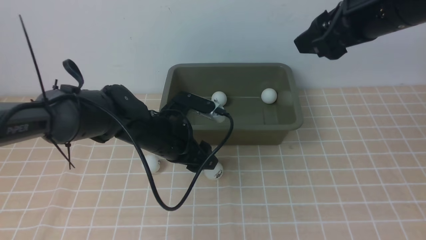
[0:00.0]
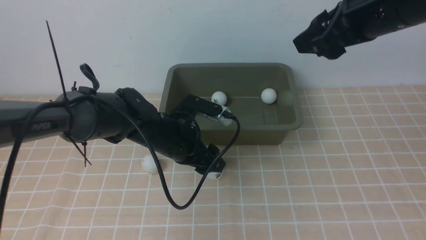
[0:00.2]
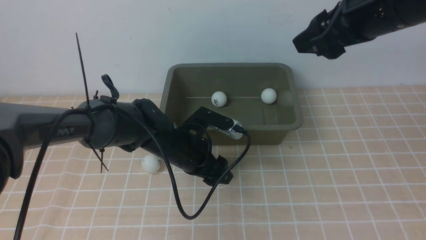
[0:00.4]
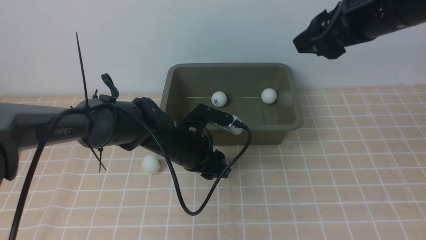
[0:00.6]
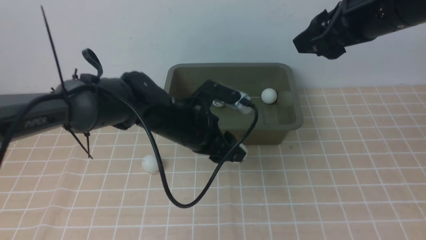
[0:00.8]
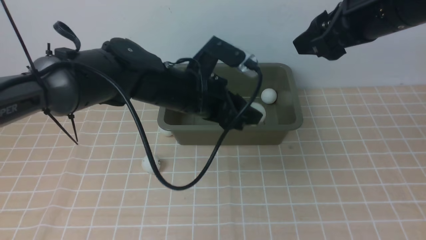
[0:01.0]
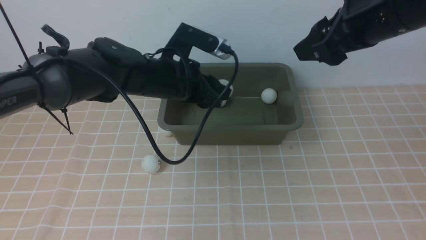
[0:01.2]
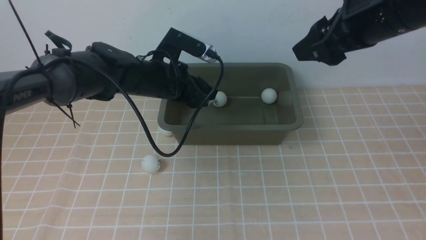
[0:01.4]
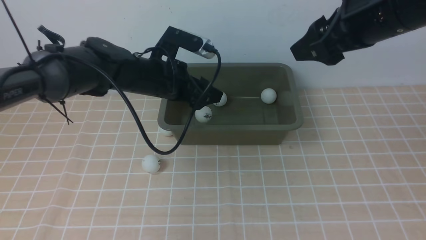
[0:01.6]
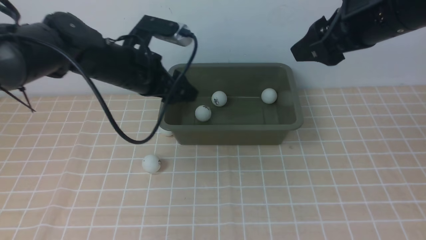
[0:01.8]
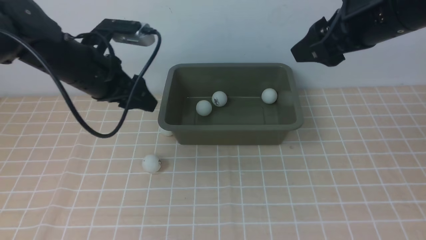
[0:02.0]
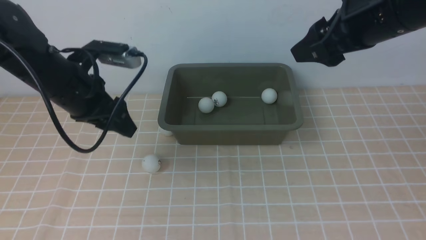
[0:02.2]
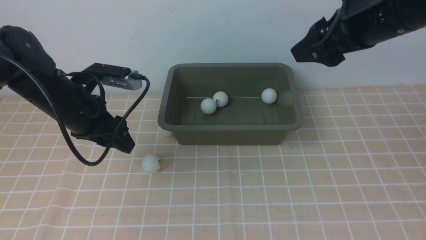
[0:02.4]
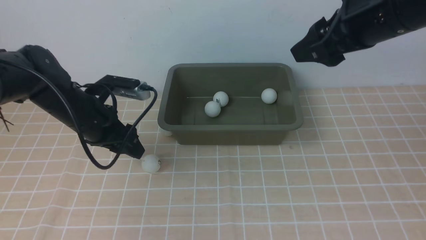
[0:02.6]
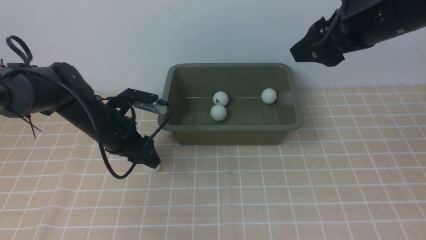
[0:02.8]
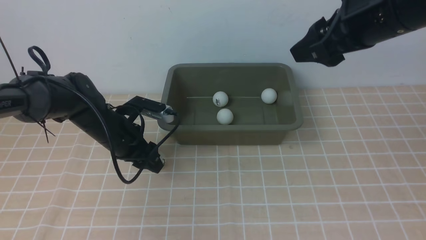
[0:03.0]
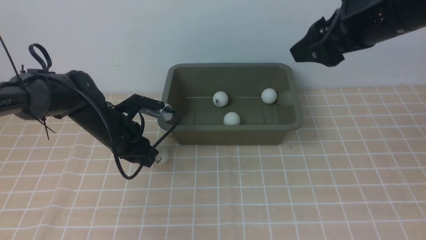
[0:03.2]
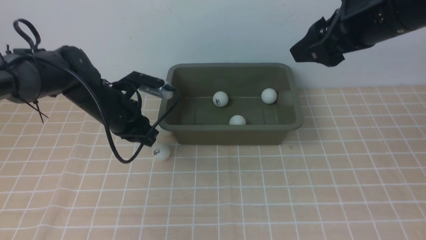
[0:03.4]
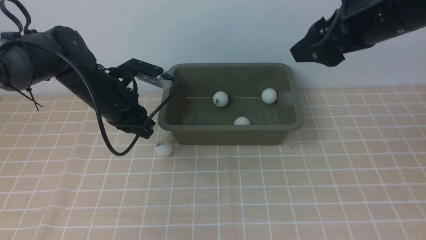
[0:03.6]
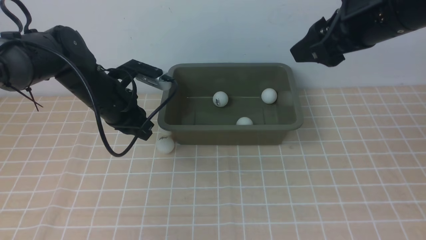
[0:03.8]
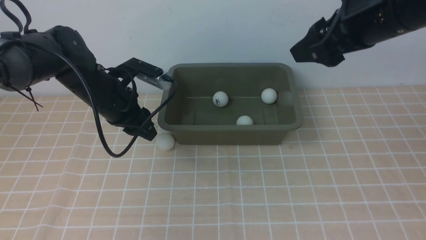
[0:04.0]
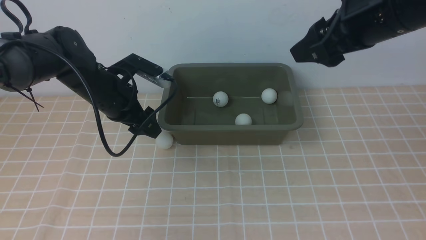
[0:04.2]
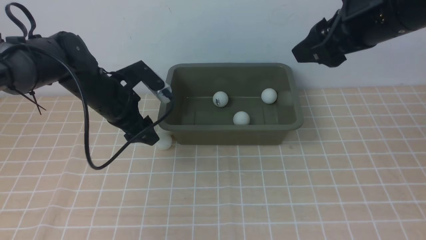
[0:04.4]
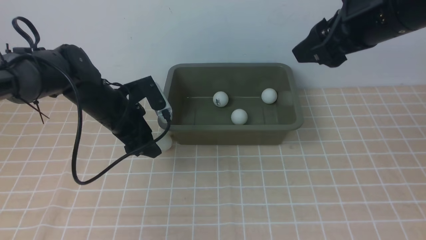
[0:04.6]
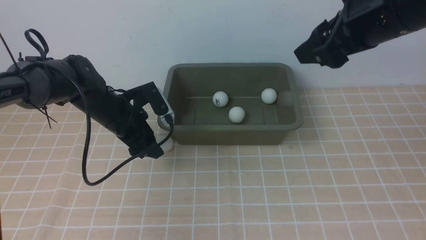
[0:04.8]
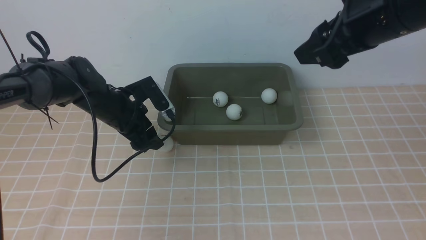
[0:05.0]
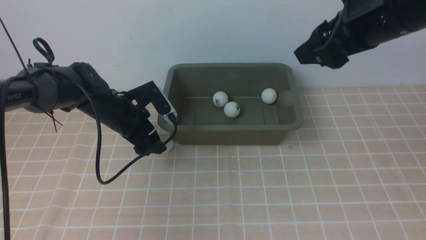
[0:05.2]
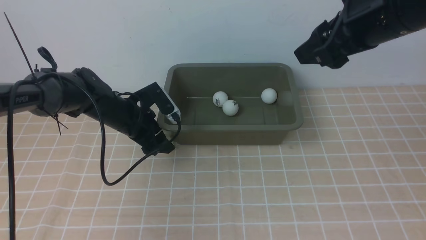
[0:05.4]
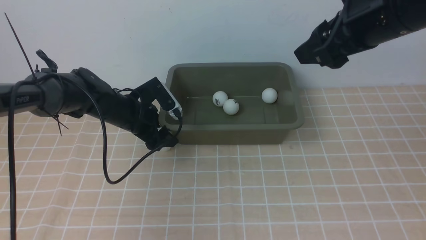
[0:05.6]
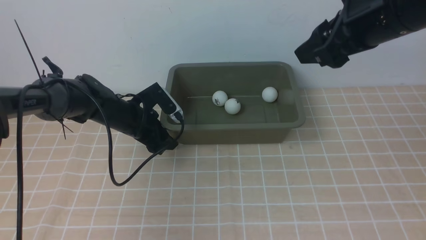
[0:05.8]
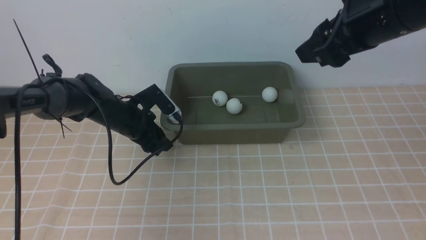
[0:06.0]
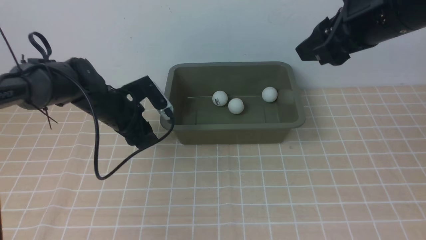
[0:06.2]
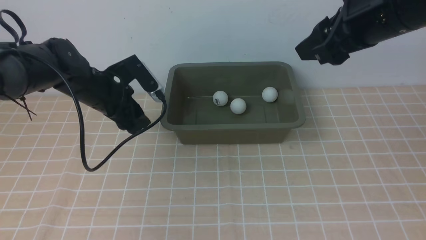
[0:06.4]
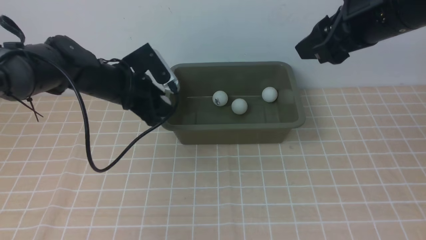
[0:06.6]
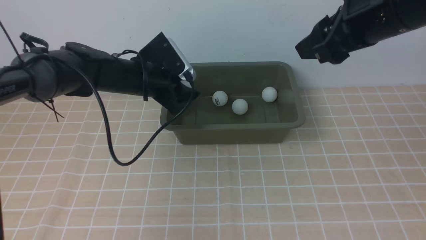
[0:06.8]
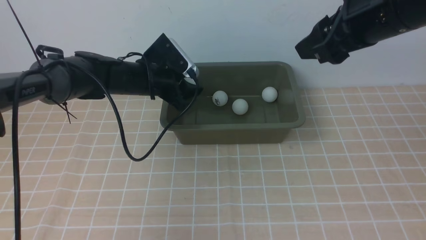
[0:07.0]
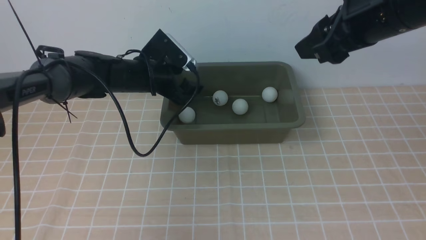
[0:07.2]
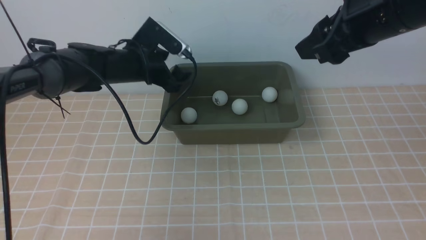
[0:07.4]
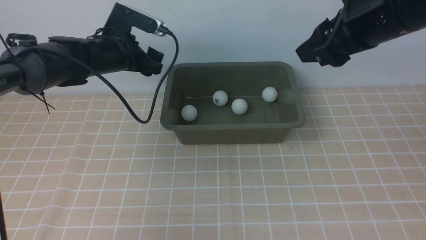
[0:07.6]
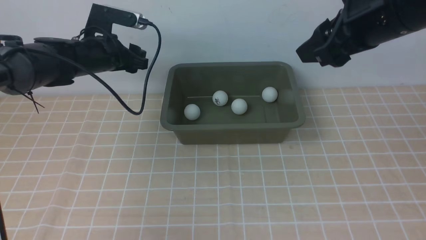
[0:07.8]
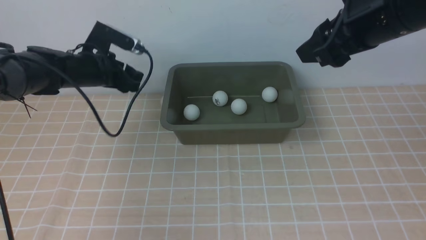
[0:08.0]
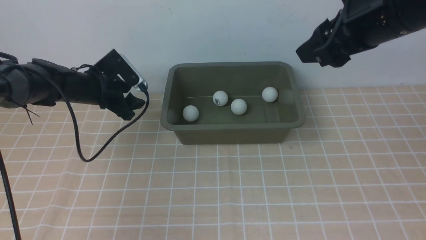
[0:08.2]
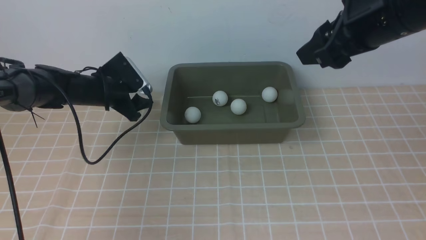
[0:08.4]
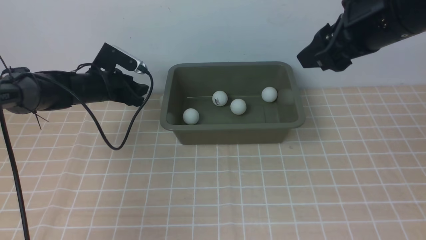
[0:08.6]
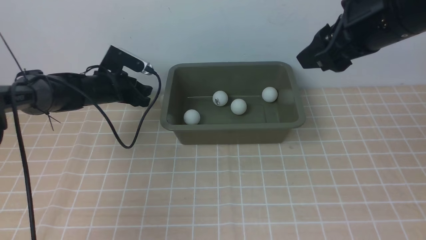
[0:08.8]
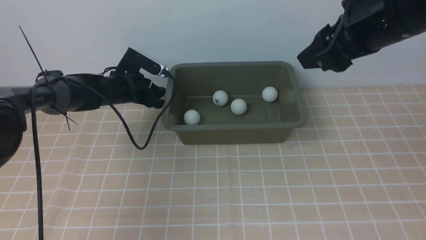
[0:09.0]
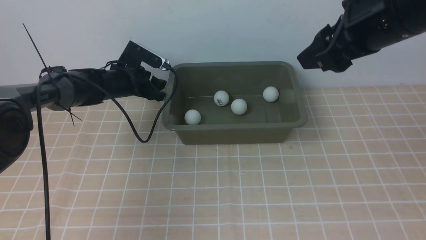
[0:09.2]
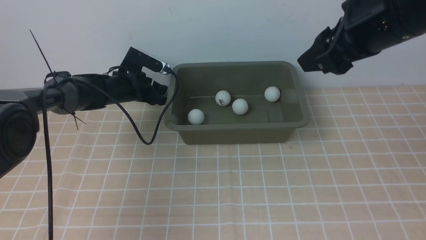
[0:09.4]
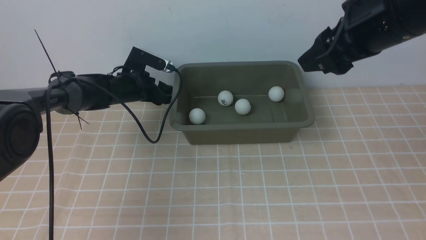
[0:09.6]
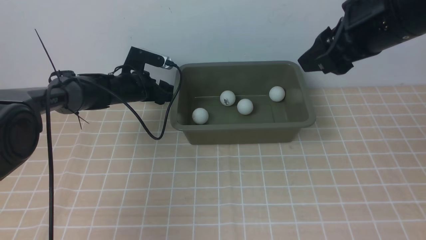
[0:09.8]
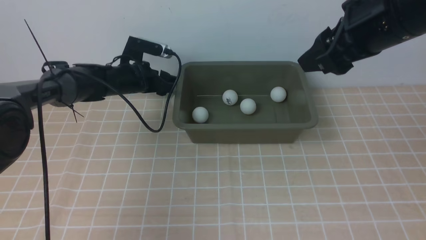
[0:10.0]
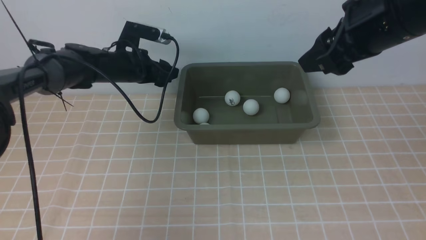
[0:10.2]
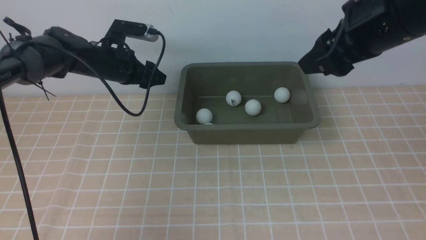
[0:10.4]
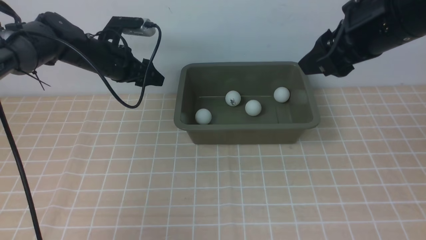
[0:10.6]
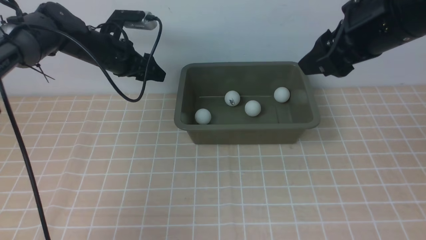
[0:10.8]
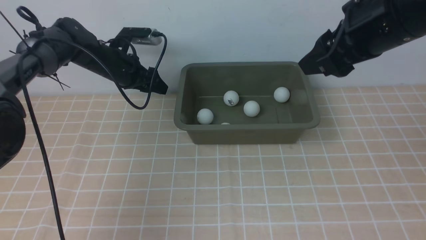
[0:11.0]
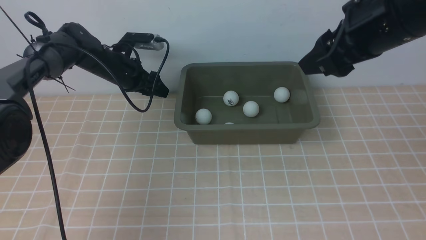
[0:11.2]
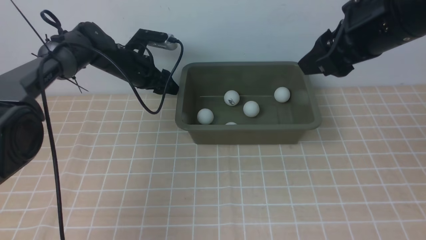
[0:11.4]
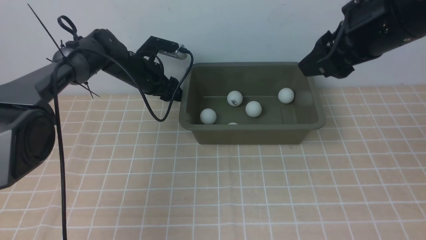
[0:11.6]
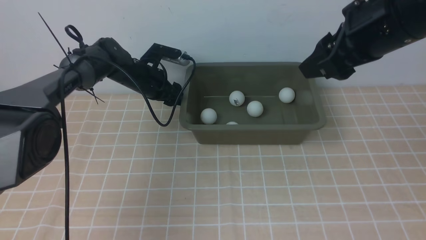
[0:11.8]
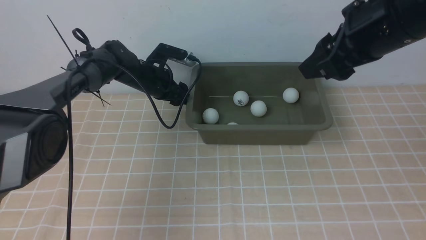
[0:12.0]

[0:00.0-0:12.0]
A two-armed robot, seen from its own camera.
Step, 0:01.2 to 0:01.6: use the left arm to put the table tennis ball into the box.
Step, 0:02.0 to 0:06.2: use the left arm to clamp the table tennis ball closest to it.
Step, 0:06.4 to 0:07.4: use the left arm to put the table tennis ball into the box.
0:00.0 to 0:01.6: The left gripper shifts roughly 10 cm upward and forward, and closes, then opens again.
0:01.6 to 0:03.0: The left gripper shifts about 10 cm downward and to the left, and closes.
0:03.0 to 0:04.4: The left gripper changes place by approximately 5 cm, and opens.
0:04.4 to 0:06.0: The left gripper heads downward, covering some 5 cm, and closes up.
0:06.0 to 0:07.6: The left gripper travels upward by about 10 cm, and opens up.
0:07.6 to 0:09.0: The left gripper moves downward, roughly 10 cm, and closes up.
0:09.0 to 0:10.4: The left gripper is displaced upward by approximately 10 cm.
0:10.4 to 0:12.0: The left gripper heads downward and to the right, covering some 10 cm.

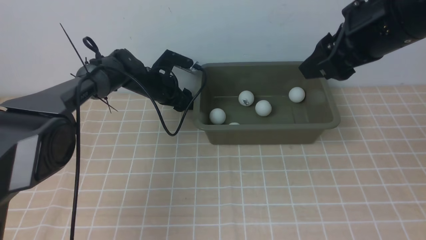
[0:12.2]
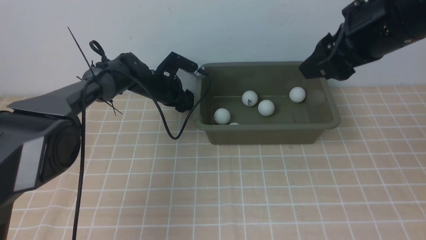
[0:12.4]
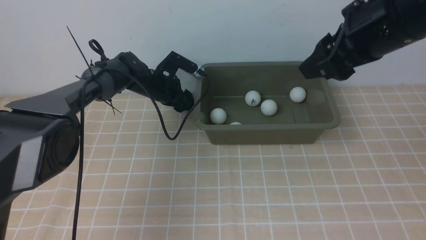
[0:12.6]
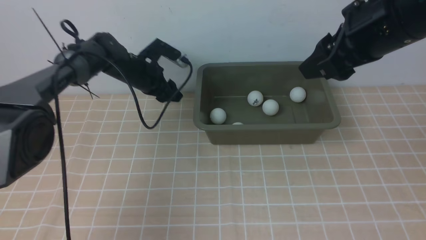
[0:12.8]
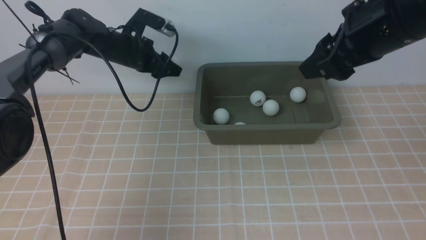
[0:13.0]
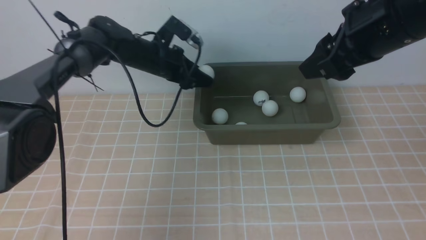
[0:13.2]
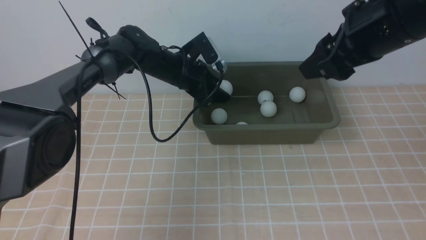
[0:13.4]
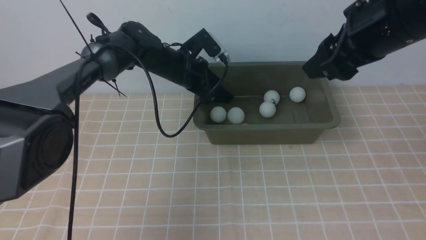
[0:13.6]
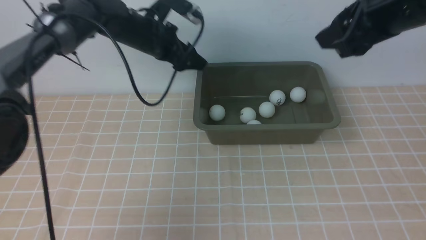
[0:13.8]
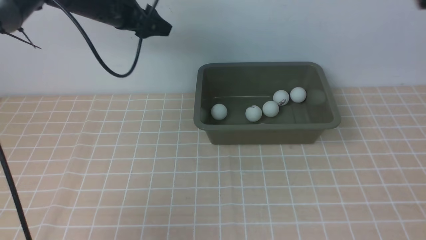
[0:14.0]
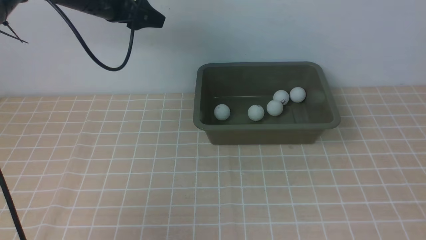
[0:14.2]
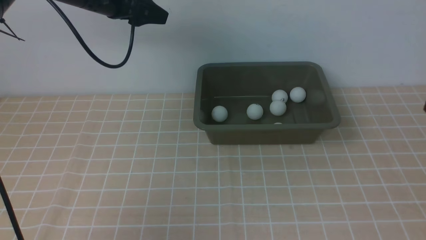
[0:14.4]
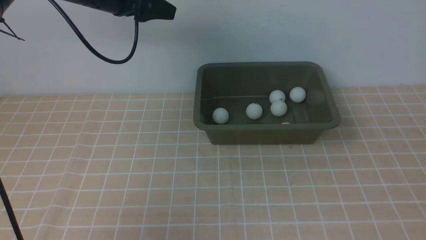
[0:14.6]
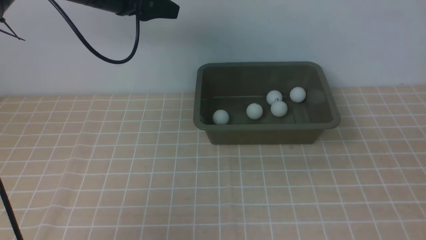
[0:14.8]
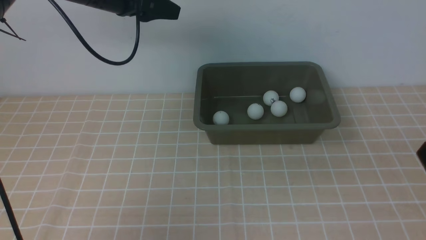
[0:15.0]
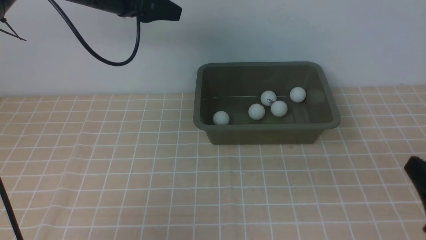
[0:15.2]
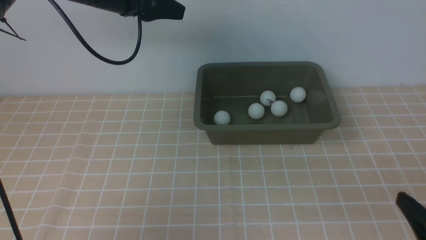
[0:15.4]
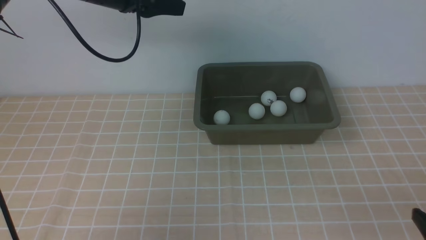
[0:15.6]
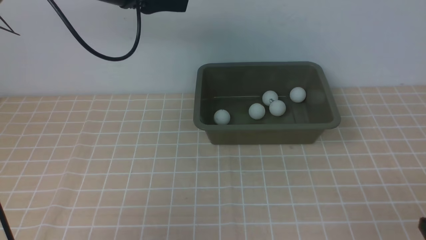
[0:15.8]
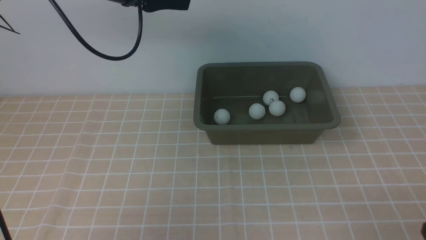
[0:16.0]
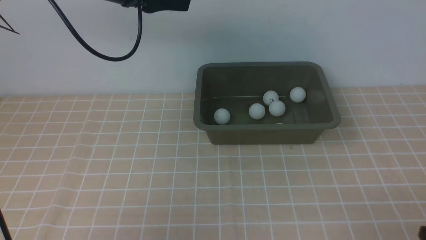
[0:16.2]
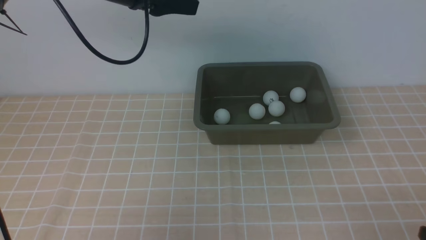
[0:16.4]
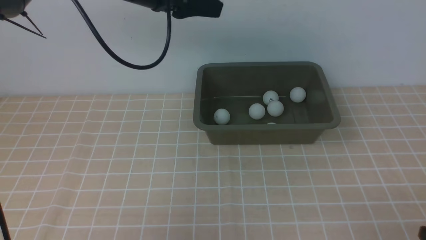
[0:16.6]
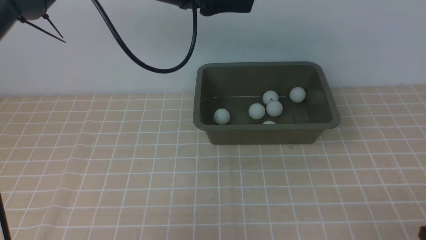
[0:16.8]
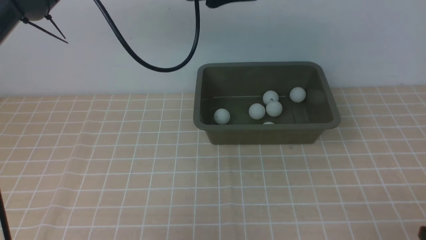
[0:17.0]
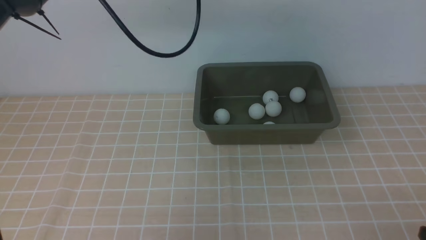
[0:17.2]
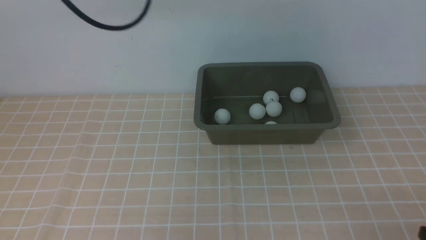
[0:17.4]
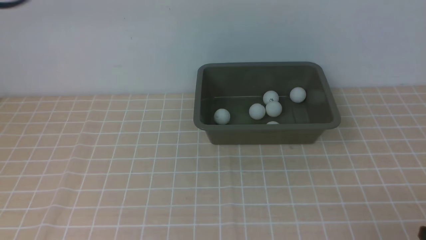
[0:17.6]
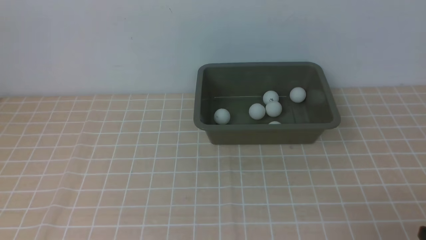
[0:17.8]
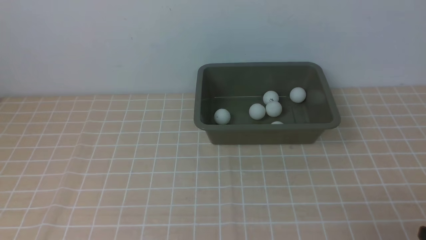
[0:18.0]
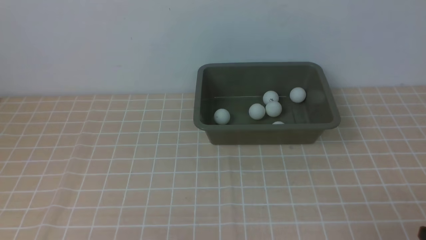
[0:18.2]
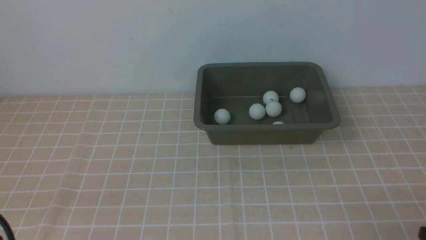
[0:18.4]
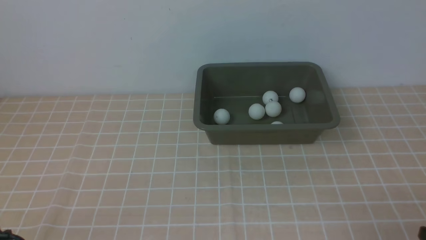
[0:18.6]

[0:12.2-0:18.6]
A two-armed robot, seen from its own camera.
Step, 0:13.0 to 0:13.8: use the left arm to put the table tennis ball into the box.
0:12.2 to 0:13.8: The right gripper moves about 5 cm, while the left gripper heads upward, covering some 15 cm.
0:13.8 to 0:15.4: The right gripper is displaced downward and backward by approximately 30 cm; the left gripper heads upward, covering roughly 10 cm.
0:15.4 to 0:17.0: The left gripper heads to the right, covering some 10 cm, while the right gripper shifts by about 5 cm.
0:17.0 to 0:18.6: The left gripper travels backward, downward and to the left by some 40 cm.
